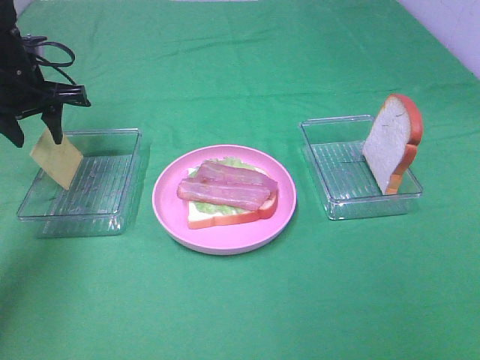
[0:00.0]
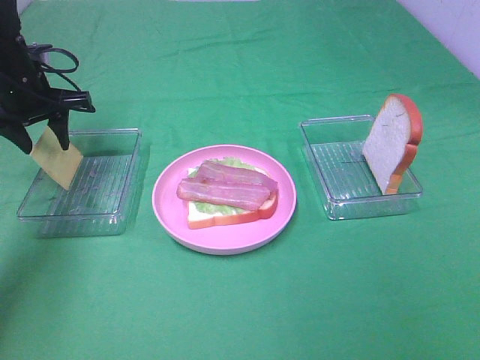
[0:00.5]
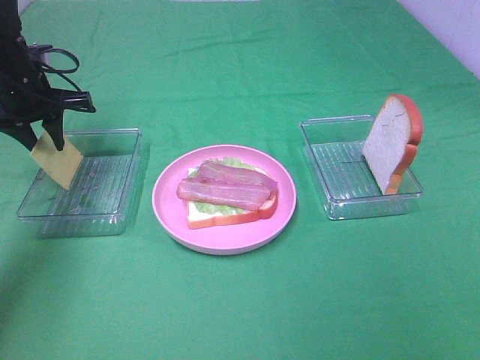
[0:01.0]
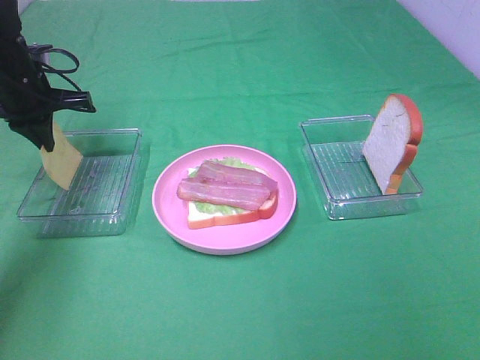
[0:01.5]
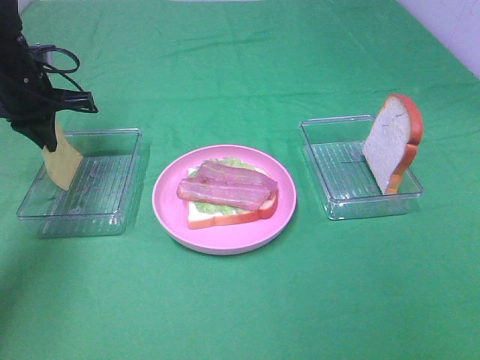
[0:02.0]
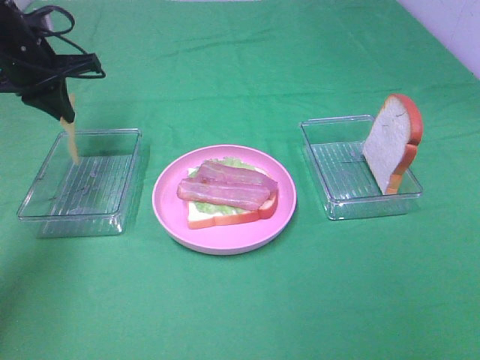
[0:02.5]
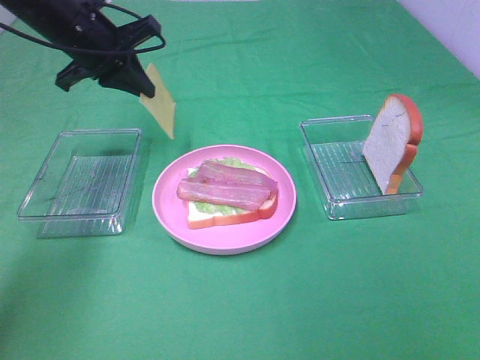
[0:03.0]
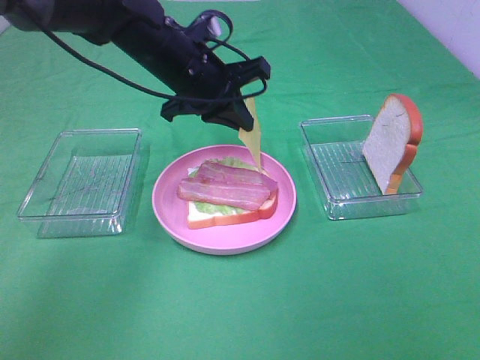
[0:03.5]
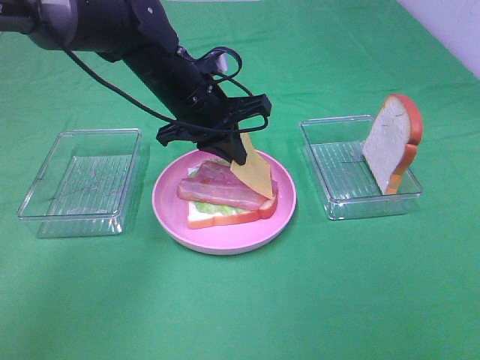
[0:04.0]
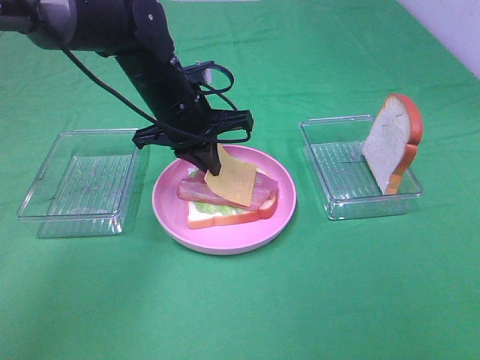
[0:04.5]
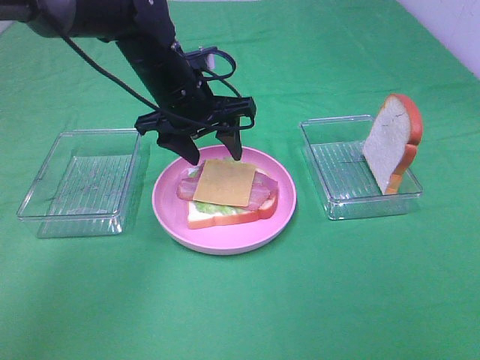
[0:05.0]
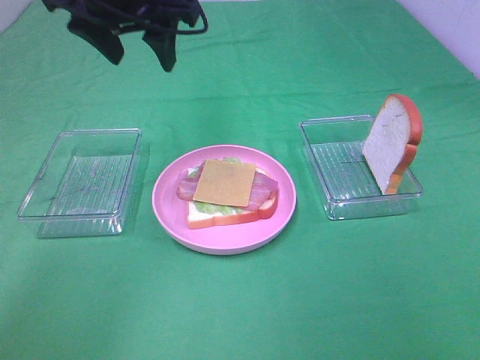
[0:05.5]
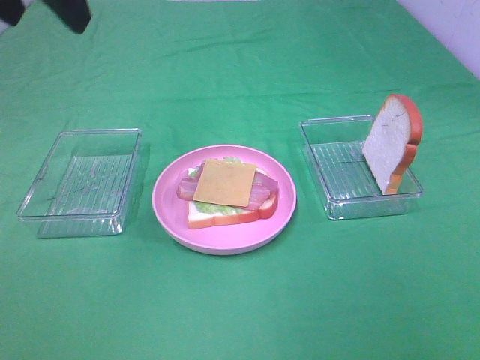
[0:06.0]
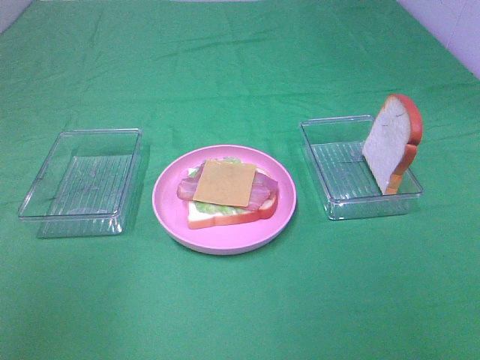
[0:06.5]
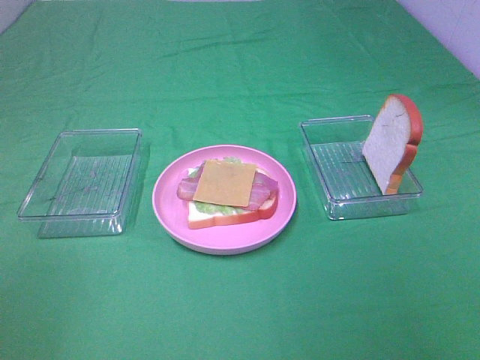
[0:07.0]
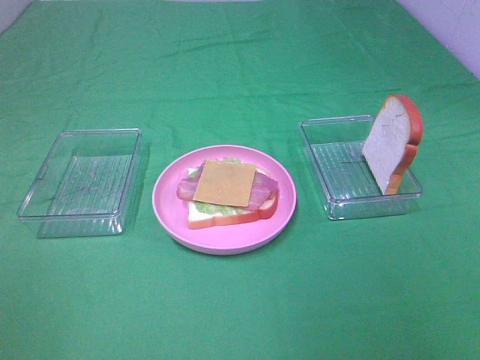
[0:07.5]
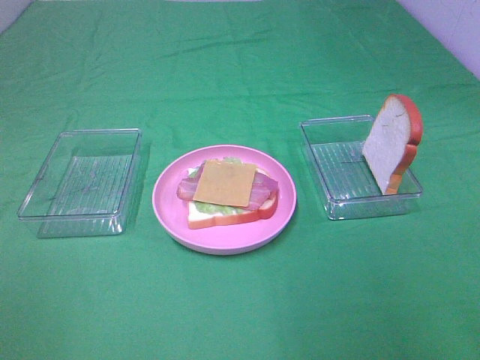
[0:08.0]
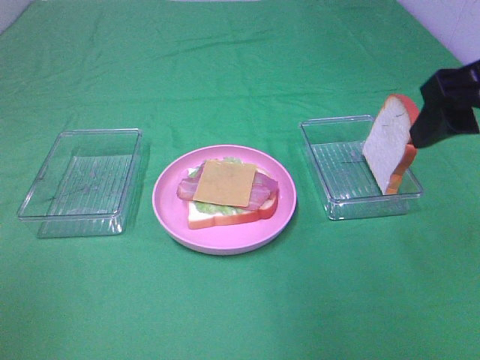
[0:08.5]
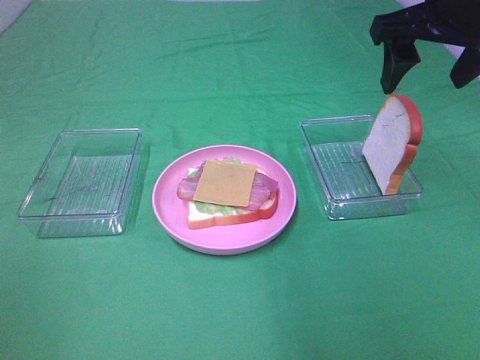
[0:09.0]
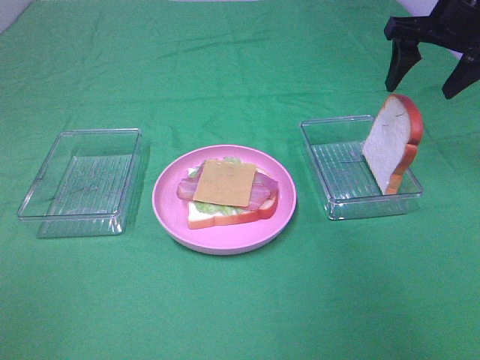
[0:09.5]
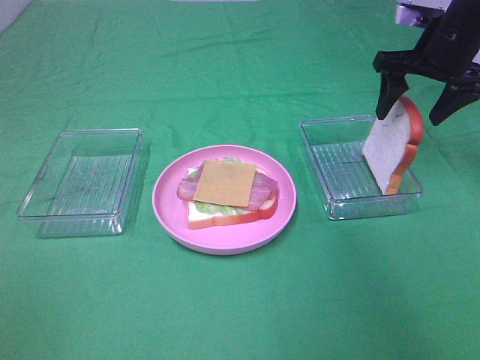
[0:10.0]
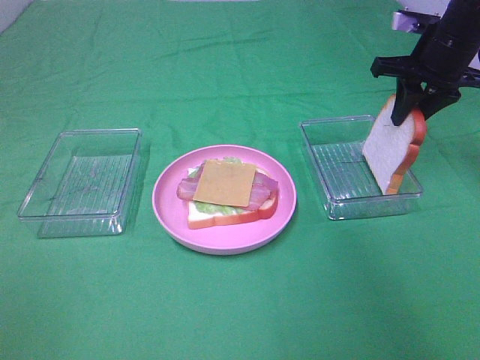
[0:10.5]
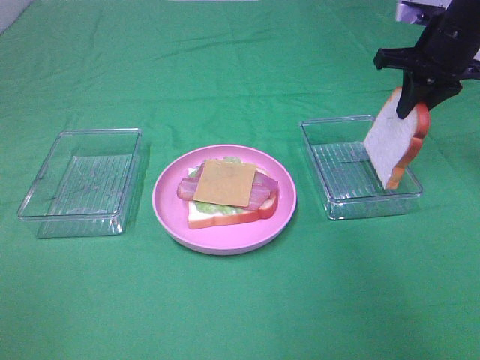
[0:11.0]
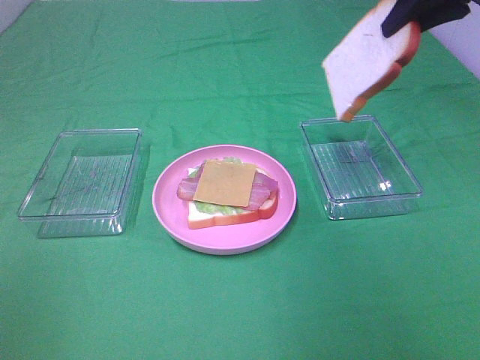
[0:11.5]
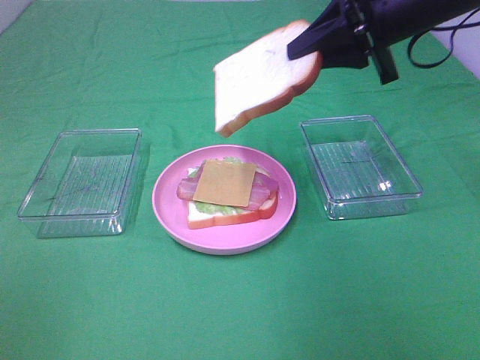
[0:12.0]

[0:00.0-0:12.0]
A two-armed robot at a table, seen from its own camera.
Task of the whole recording: Make sandwiches.
Step, 0:02.0 to 0:04.5: Left hand:place the cheese slice on top of the bacon.
Step, 0:05.0 to 0:10.5: Right hand:grab the bread slice.
0:00.0 to 0:02.0: The left gripper closes up.
0:02.0 to 0:04.0: The left gripper shifts some 20 cm to the right.
0:04.0 to 0:06.0: The left gripper heads upward, backward and to the left, covering approximately 30 cm, and opens its fingers.
0:06.0 to 0:08.0: The left gripper shifts roughly 30 cm backward and to the left.
0:08.0 to 0:10.0: The right gripper heads forward, covering roughly 35 cm.
0:10.0 to 0:12.0: The right gripper travels to the left, backward and upward by approximately 15 cm, and closes up.

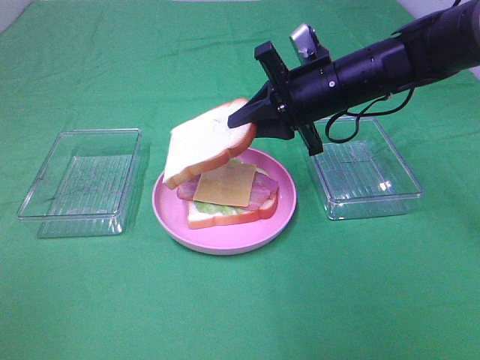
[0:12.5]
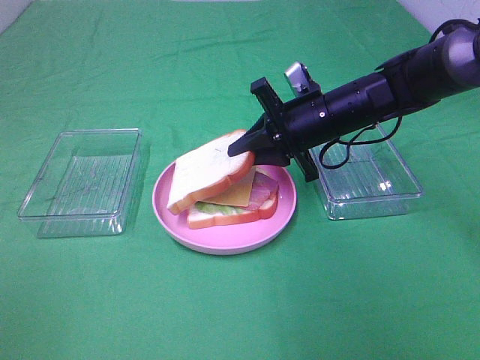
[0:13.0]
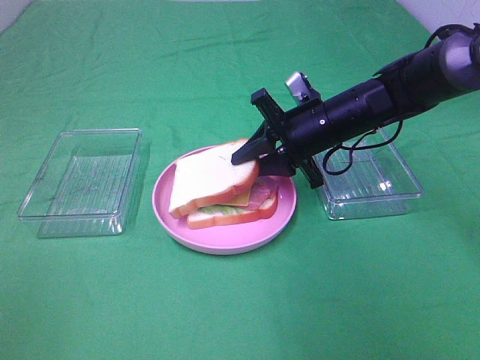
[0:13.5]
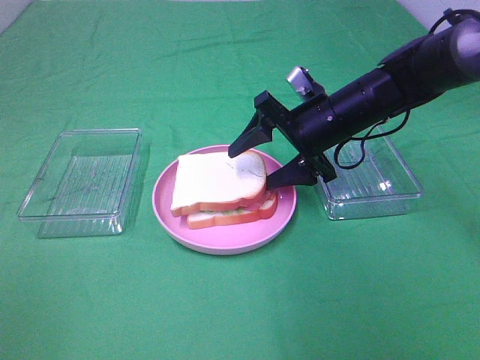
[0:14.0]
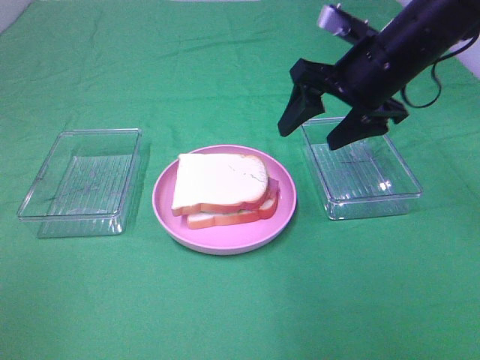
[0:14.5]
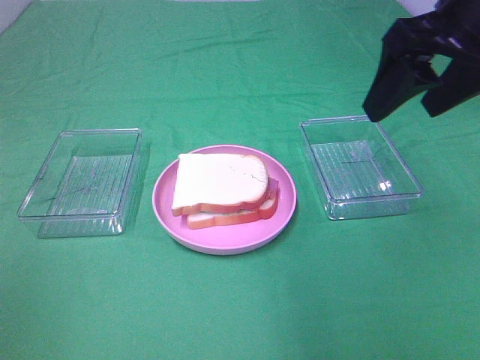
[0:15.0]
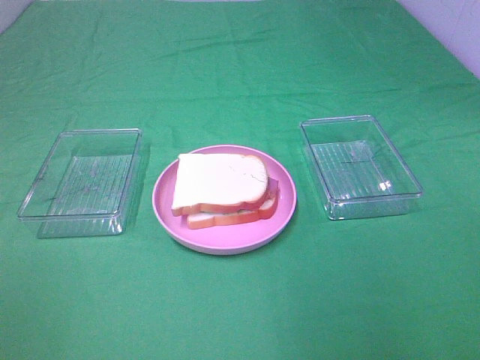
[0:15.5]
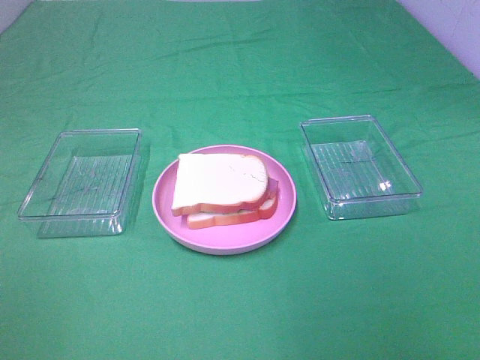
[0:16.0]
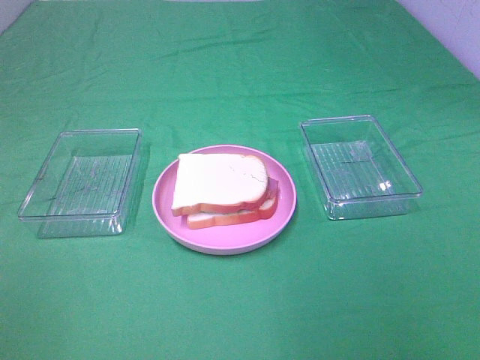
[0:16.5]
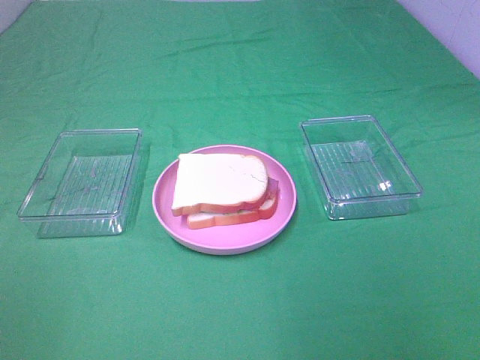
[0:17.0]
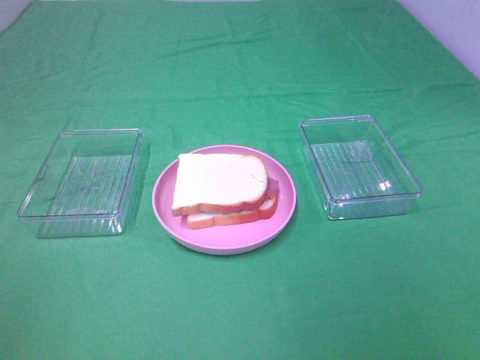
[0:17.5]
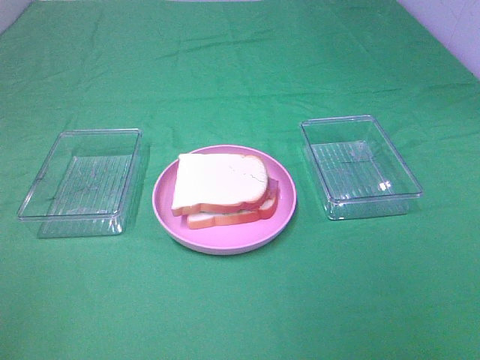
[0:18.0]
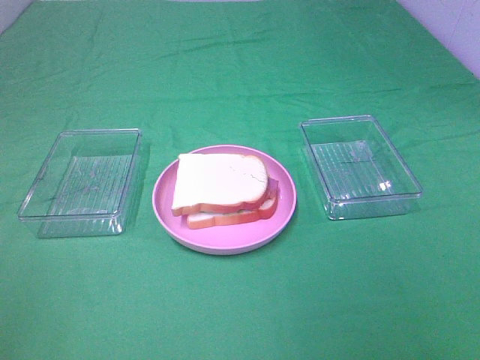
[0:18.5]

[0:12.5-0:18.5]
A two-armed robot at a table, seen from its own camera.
Task of the whole recording: Make sandwiches.
0:12.5 to 0:14.5: The right gripper goes some 5 cm upward, and opens up.
0:14.5 to 0:16.5: The right gripper goes about 35 cm backward.

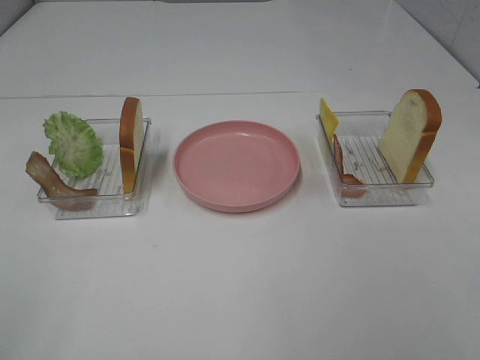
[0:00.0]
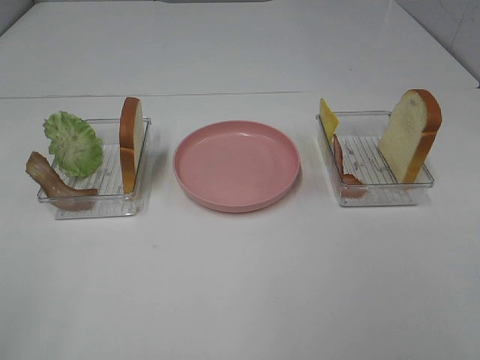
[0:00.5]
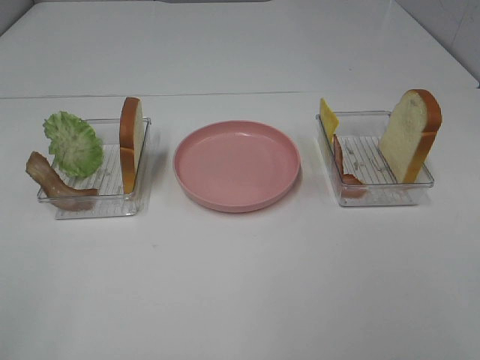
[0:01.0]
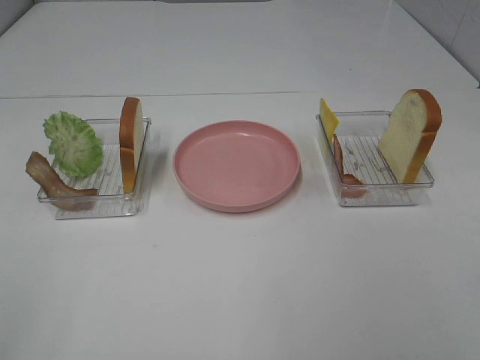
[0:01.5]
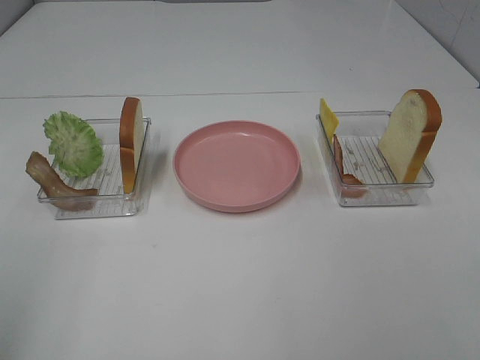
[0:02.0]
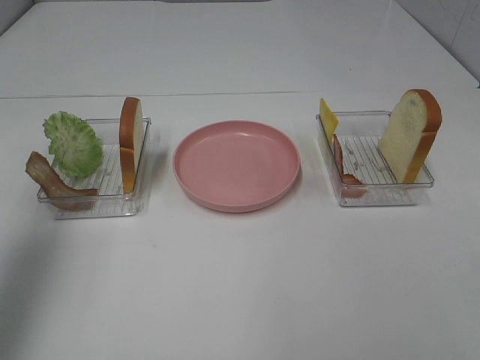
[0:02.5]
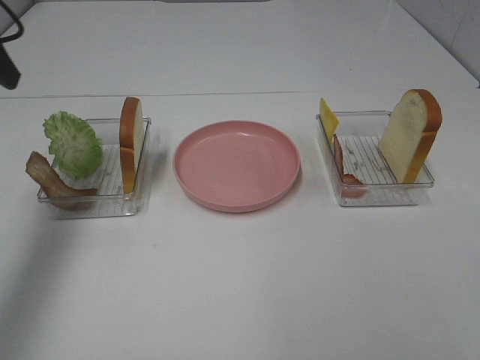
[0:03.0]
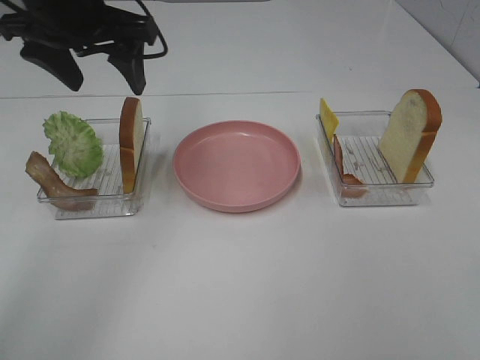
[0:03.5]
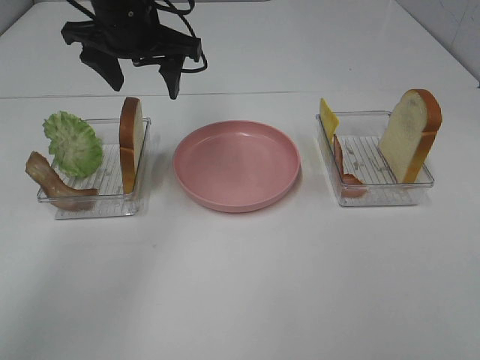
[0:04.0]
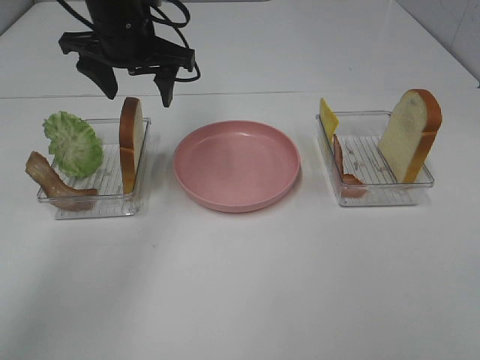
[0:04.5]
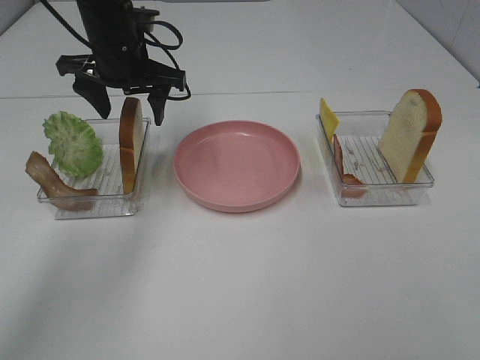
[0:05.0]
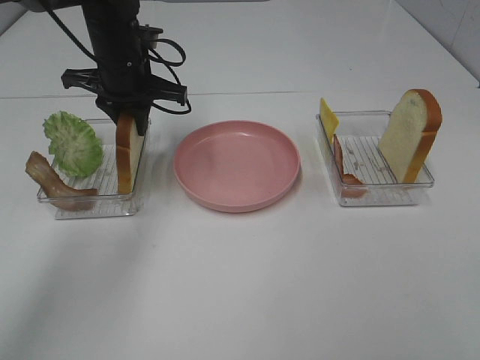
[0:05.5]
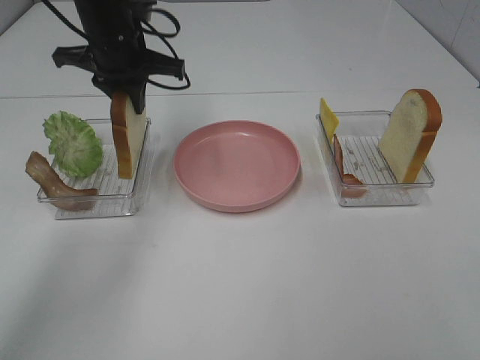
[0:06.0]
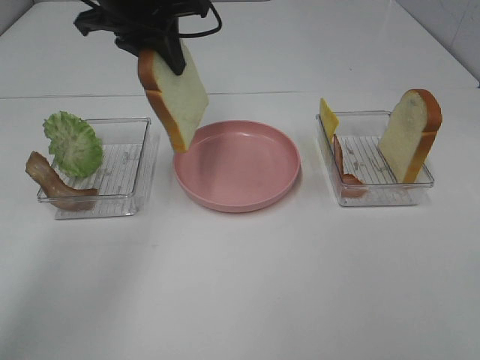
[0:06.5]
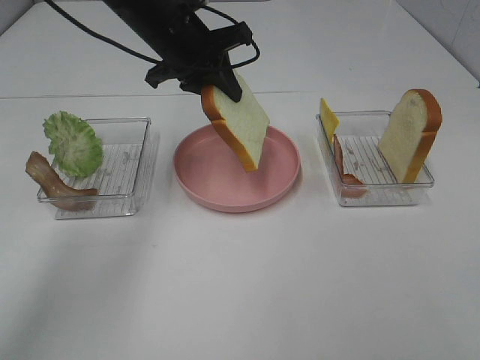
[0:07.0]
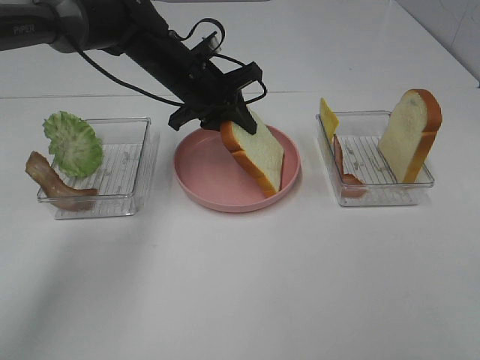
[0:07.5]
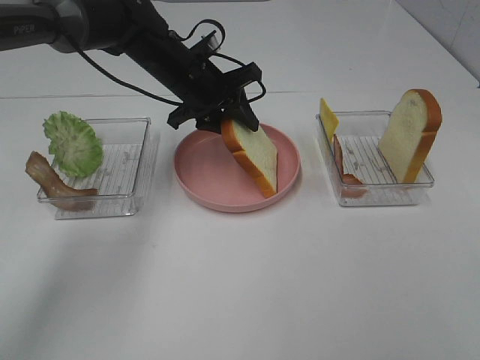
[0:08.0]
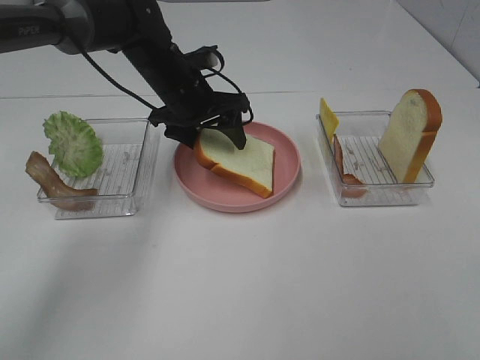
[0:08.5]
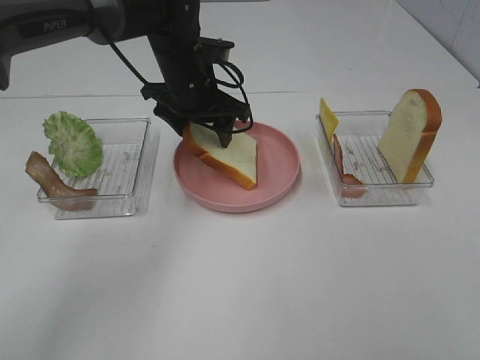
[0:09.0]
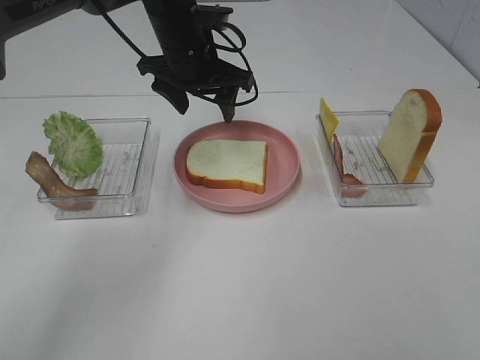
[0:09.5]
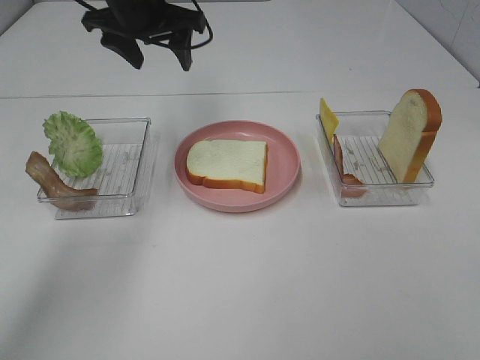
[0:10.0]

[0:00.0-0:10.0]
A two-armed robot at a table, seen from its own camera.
Task of the whole recording: Make sandwiches.
Step, 0:00.0 to 0:05.5: Left hand:grab the bread slice.
Step, 0:06.0 to 0:09.5: Left hand:place the bread slice on the plate.
0:02.0 to 0:04.0: The left gripper is displaced forward and to the right by about 40 cm.
0:04.0 to 0:06.0: The left gripper closes.
0:06.0 to 0:08.0: The left gripper travels downward and to the right by about 10 cm.
0:08.0 to 0:10.0: The left gripper shifts some 15 cm upward and to the left, and opens.
